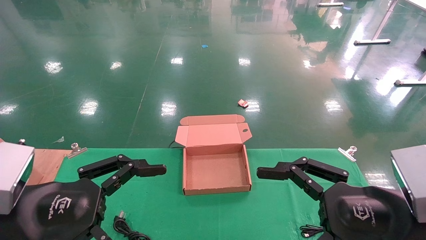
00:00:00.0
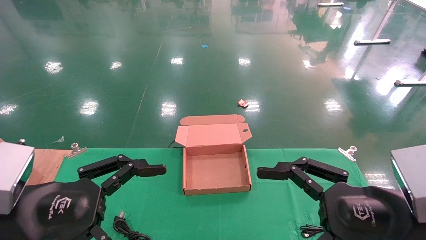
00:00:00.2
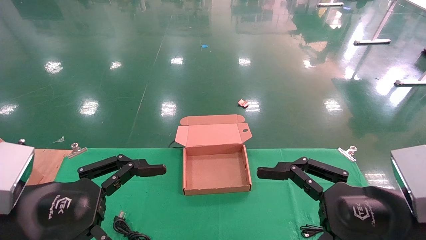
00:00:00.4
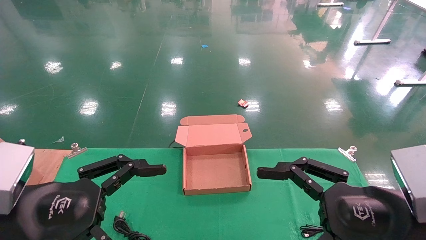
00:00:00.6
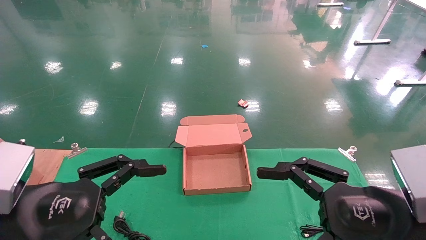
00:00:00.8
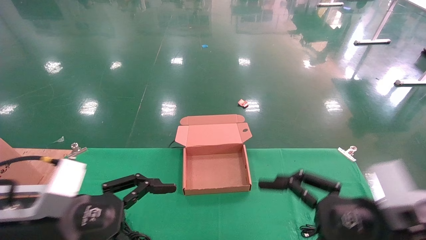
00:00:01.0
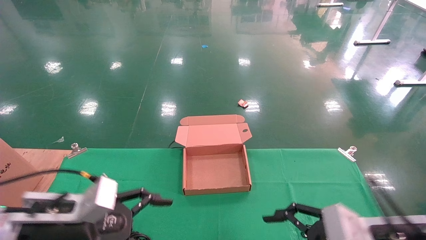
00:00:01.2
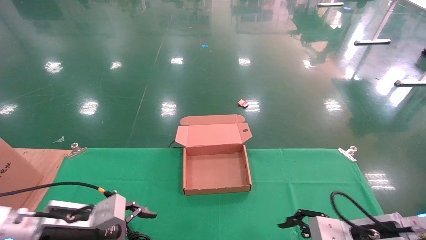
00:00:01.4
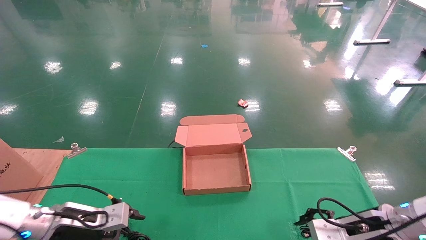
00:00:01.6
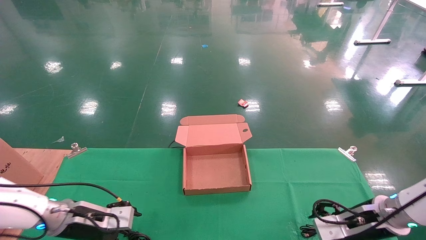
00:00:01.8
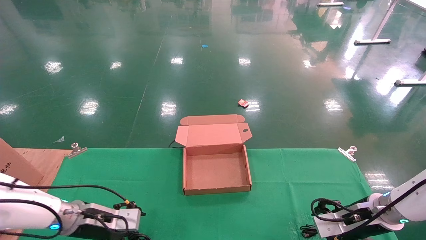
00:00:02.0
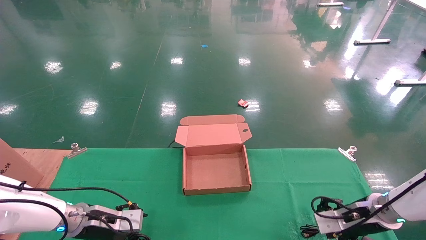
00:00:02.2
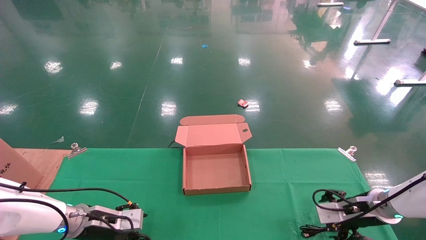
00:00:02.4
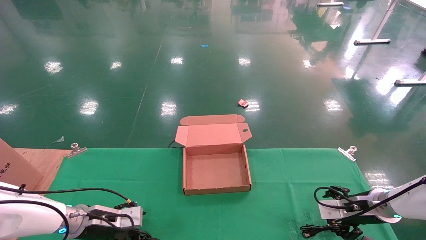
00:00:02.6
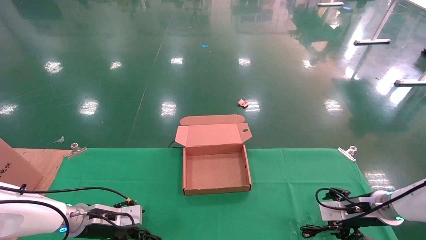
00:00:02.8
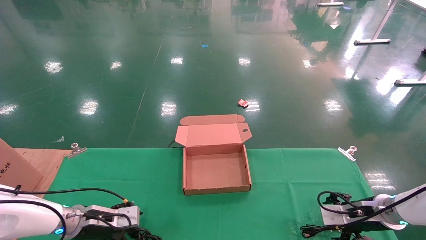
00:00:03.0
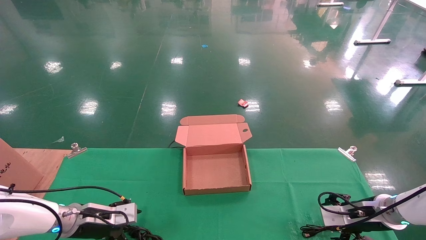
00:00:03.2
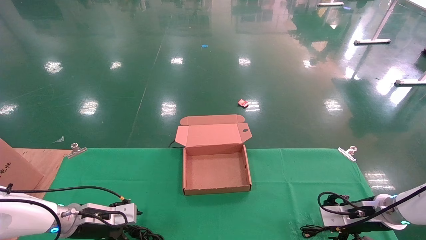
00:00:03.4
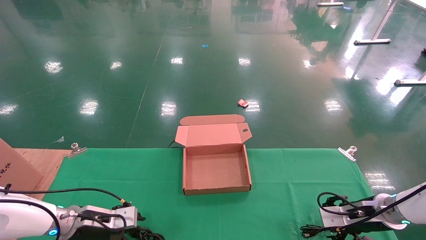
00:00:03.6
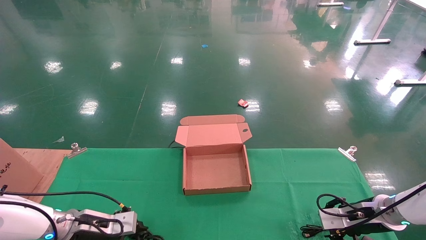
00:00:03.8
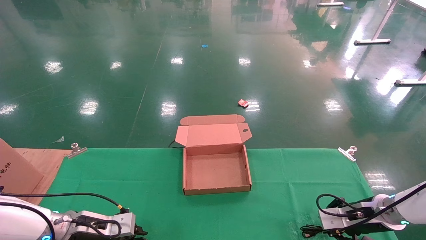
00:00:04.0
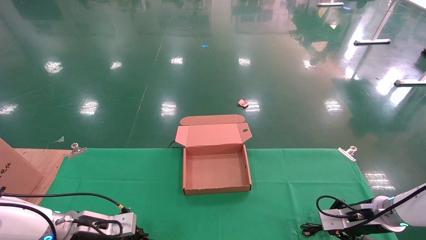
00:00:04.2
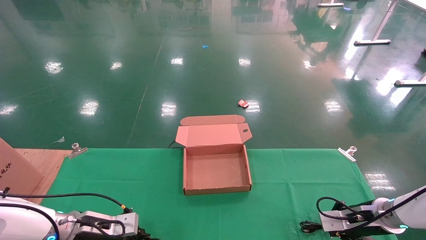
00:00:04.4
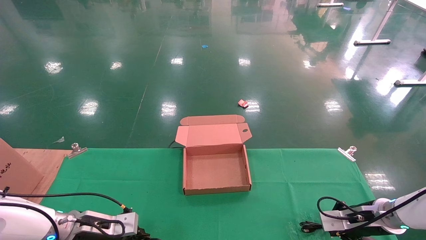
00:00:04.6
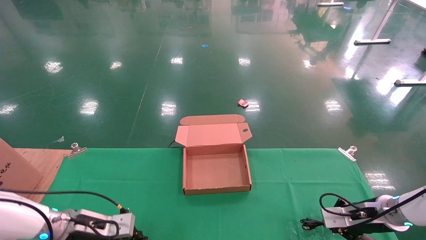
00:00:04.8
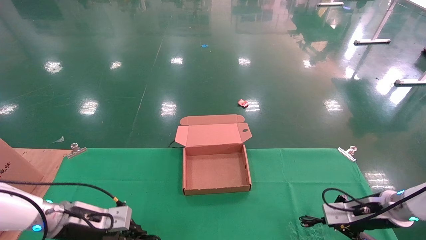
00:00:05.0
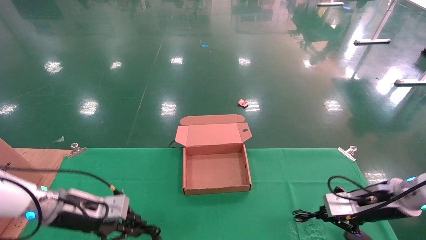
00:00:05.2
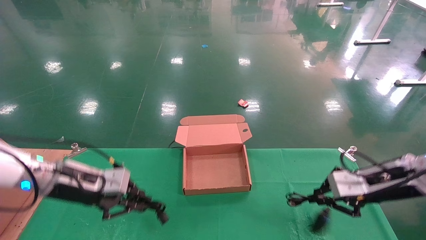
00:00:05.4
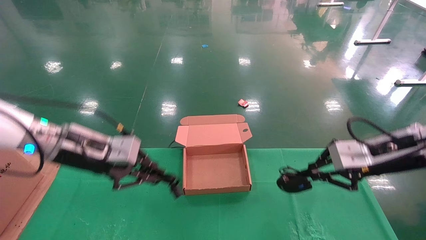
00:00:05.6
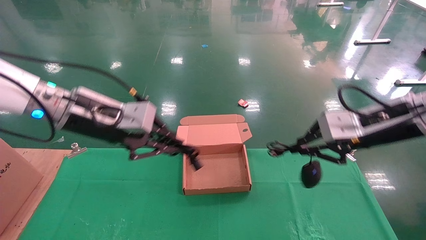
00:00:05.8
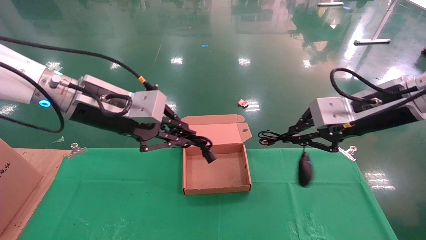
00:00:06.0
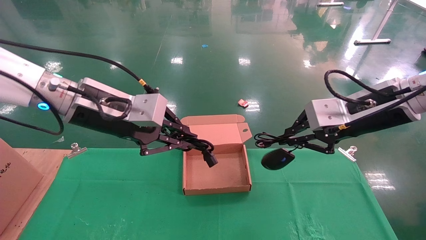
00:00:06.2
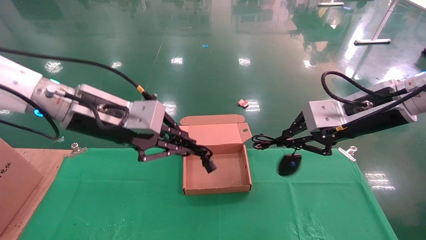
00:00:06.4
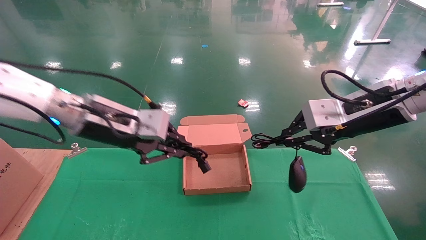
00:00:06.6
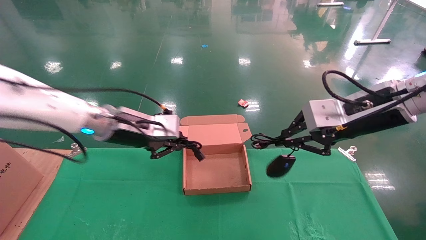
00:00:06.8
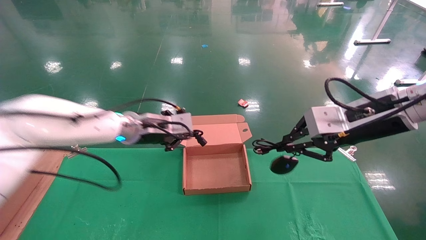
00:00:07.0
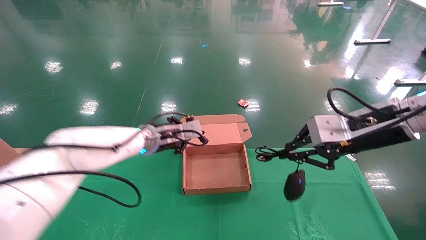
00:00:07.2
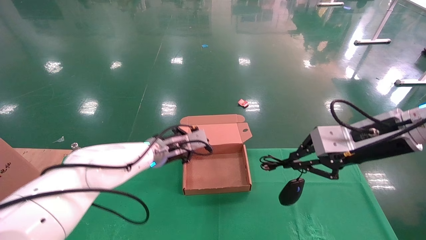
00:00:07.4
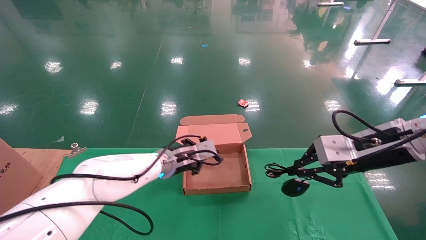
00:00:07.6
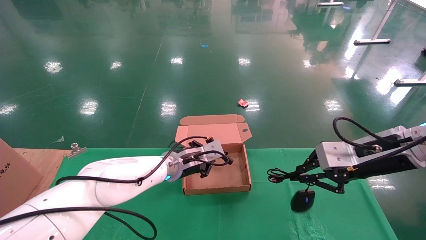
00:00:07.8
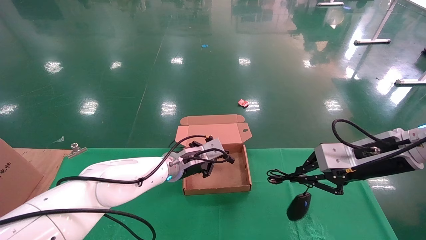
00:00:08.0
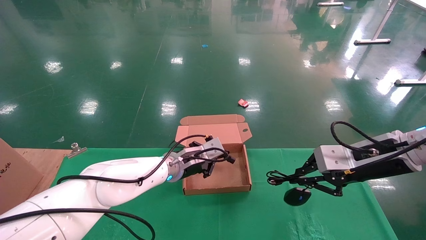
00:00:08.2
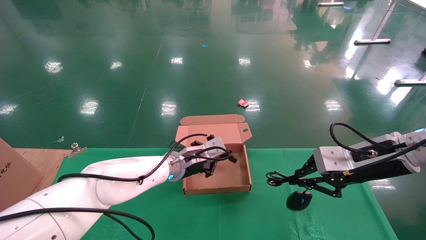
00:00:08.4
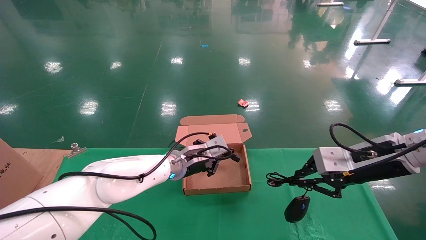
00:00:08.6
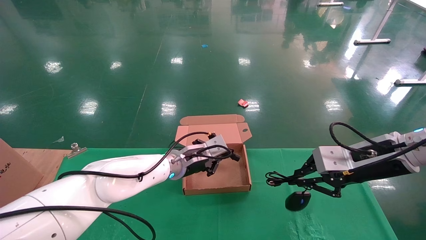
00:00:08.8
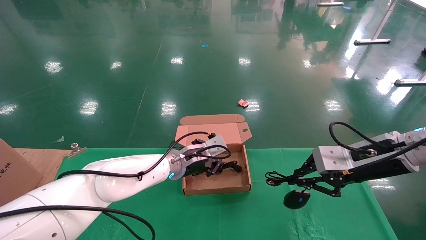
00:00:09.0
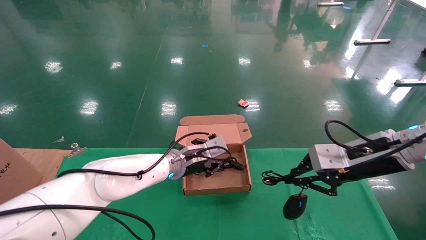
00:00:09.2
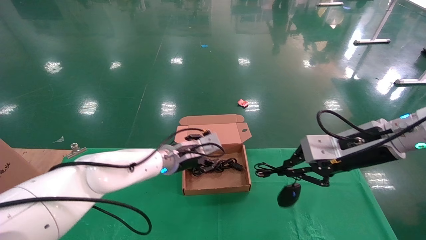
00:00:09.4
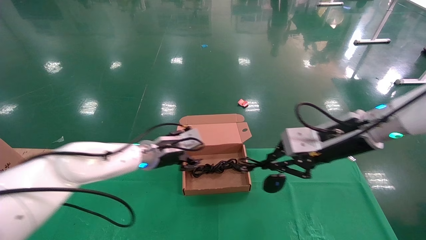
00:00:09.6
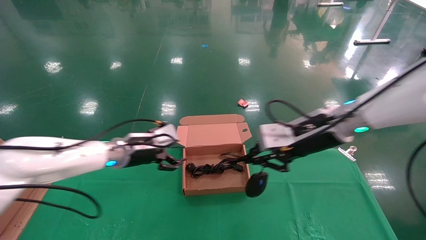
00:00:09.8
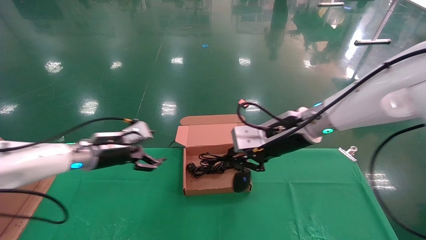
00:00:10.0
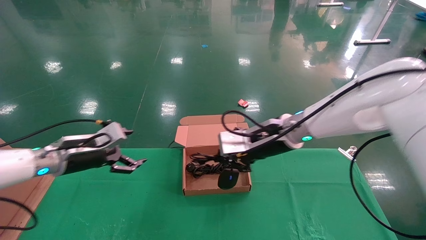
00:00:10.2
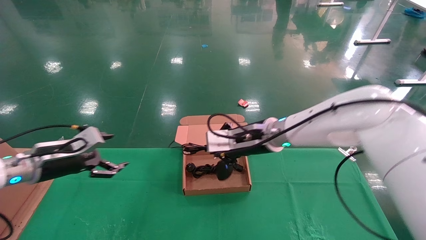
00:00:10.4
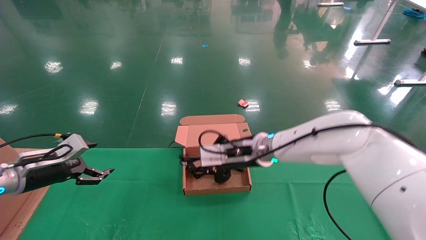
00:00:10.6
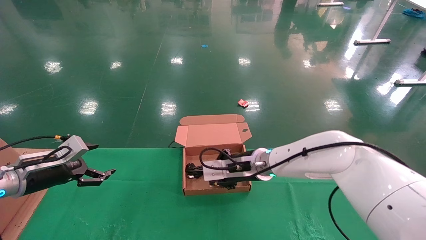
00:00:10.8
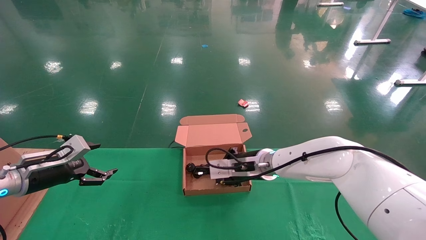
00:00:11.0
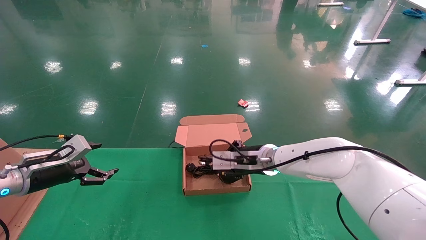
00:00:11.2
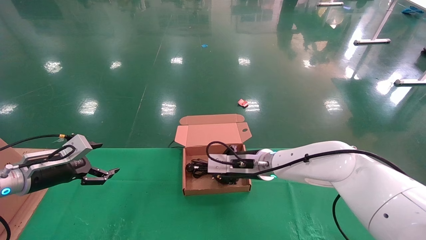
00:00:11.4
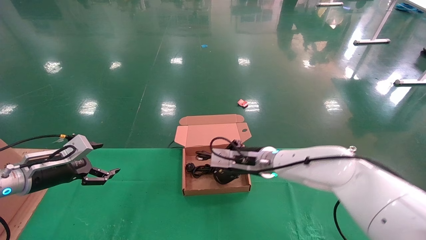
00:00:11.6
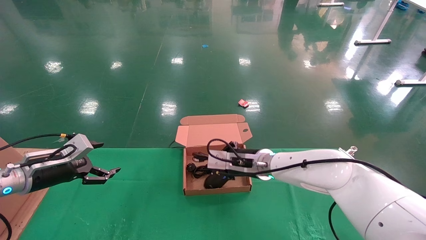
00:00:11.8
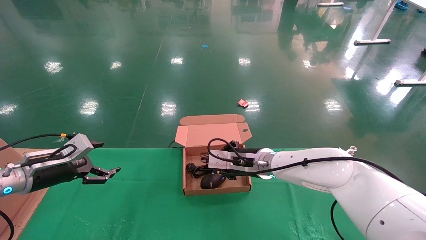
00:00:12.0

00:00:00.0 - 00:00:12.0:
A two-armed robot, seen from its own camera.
Step, 00:00:01.8 - 00:00:05.8: Grab and lift both the mouse and power cord from the accessory packaging area at the same time.
00:00:00.0 - 00:00:01.6: Both grippers travel together forward and downward, approximately 20 cm.
00:00:01.6 - 00:00:03.0: The left gripper heads forward and downward, covering about 10 cm; the right gripper shifts some 10 cm forward and to the right.
00:00:03.0 - 00:00:04.4: The right gripper closes; the left gripper closes.
00:00:04.4 - 00:00:06.0: The two grippers go roughly 30 cm upward.
00:00:06.0 - 00:00:07.6: The right gripper goes roughly 5 cm downward; the left gripper moves downward, forward and to the right, some 25 cm.
00:00:07.6 - 00:00:09.0: The grippers stay close to where they were, moving slightly.
00:00:09.0 - 00:00:10.4: The right gripper shifts some 20 cm to the left and forward; the left gripper shifts roughly 30 cm to the left, and opens up.
00:00:10.4 - 00:00:12.0: The right gripper shifts roughly 10 cm downward.

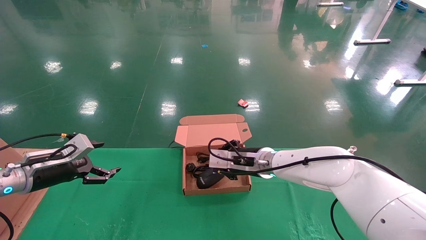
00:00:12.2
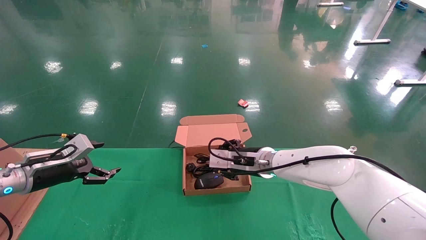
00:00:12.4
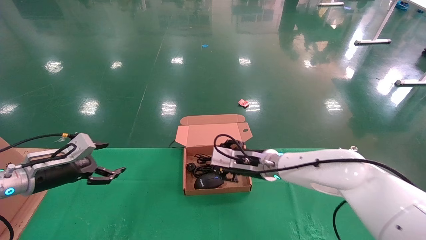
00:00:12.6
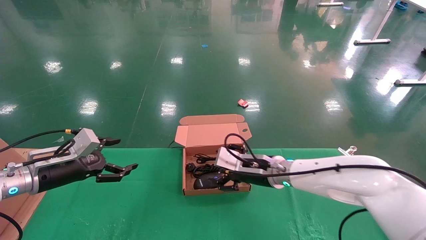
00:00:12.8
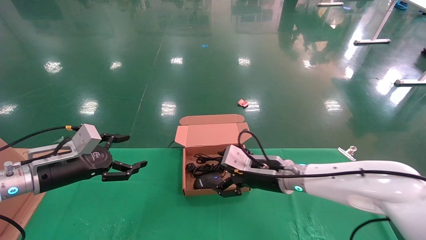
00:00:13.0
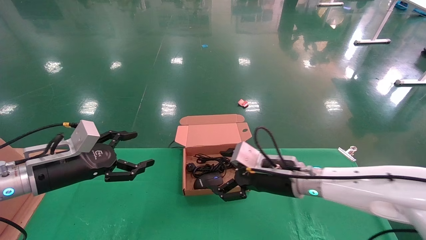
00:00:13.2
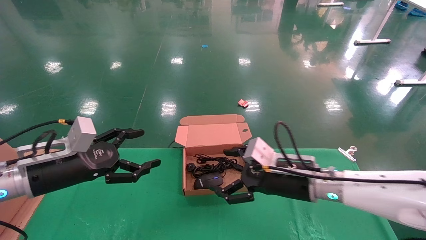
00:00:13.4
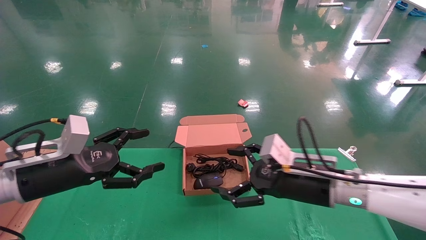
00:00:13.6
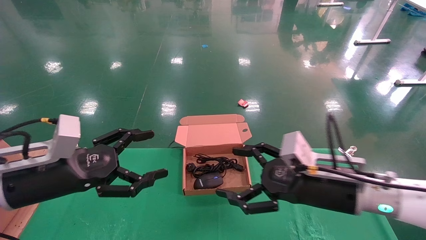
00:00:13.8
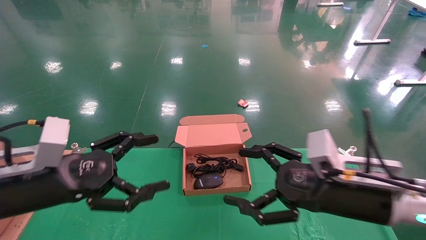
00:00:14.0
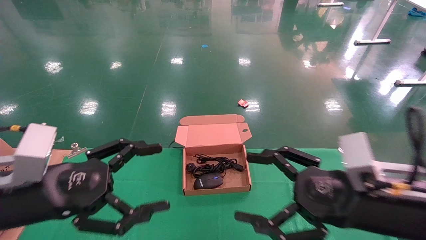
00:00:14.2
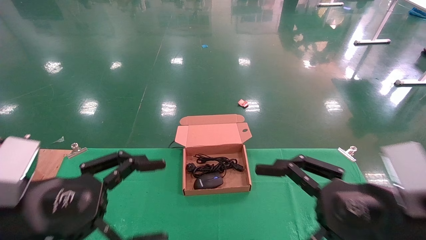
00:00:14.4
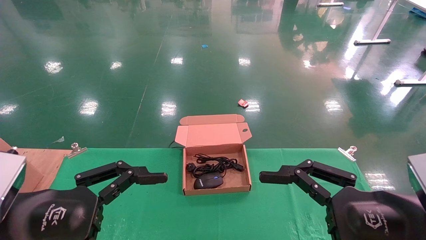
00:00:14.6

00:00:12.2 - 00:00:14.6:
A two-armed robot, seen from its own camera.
00:00:12.2 - 00:00:13.4: The left gripper moves to the right and backward, approximately 10 cm. The right gripper shifts approximately 15 cm backward and to the right, and opens.
00:00:13.4 - 00:00:14.6: The left gripper moves backward, about 15 cm; the right gripper heads backward and to the right, covering approximately 20 cm.

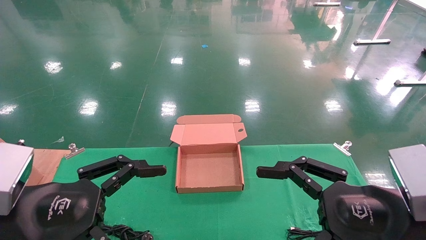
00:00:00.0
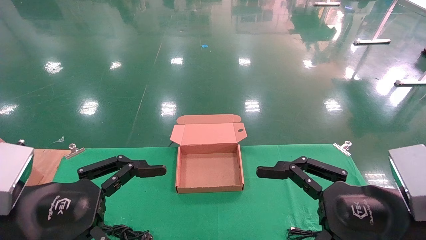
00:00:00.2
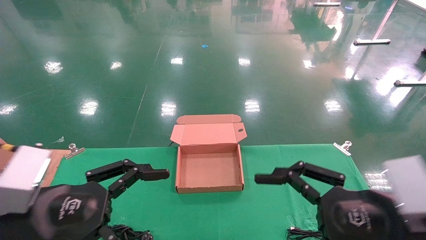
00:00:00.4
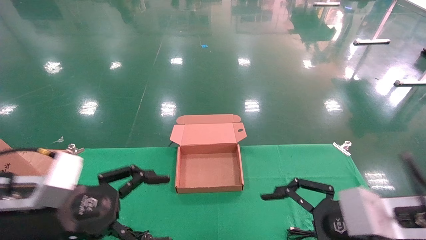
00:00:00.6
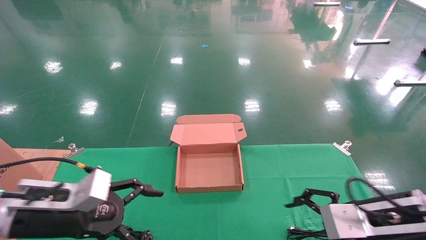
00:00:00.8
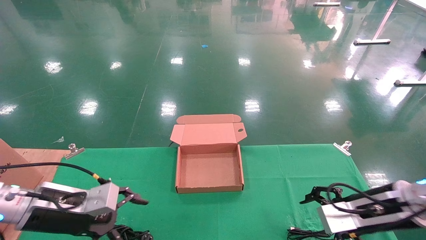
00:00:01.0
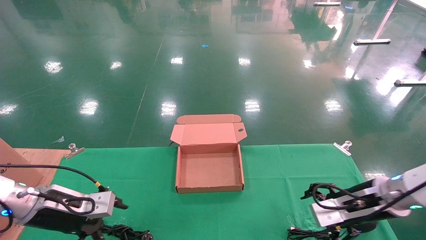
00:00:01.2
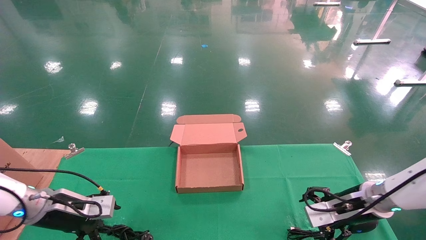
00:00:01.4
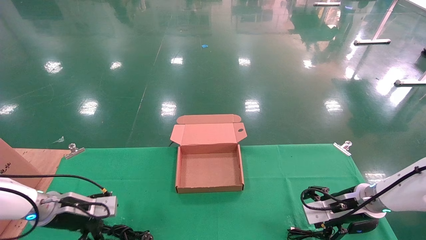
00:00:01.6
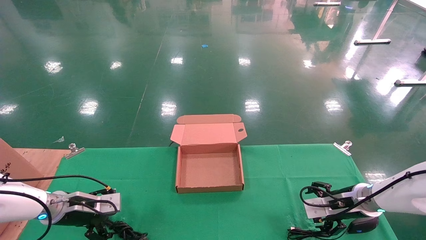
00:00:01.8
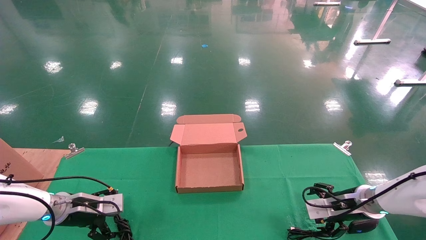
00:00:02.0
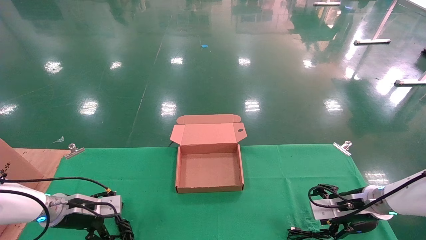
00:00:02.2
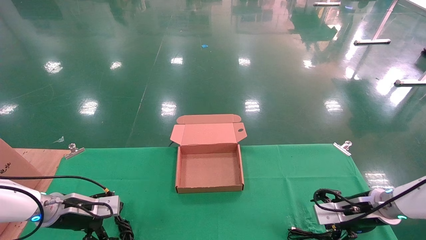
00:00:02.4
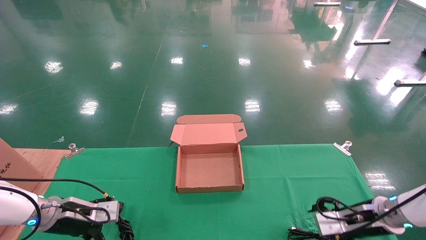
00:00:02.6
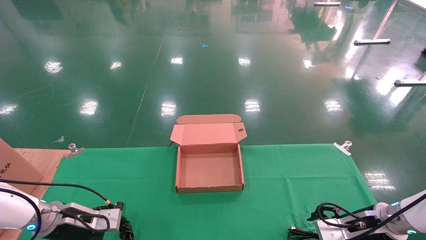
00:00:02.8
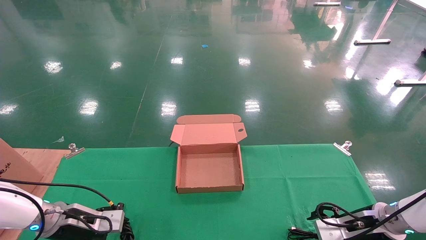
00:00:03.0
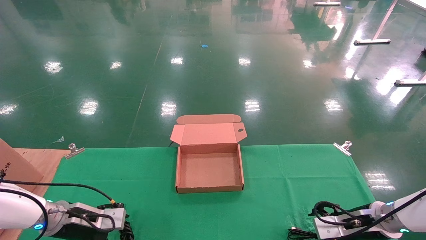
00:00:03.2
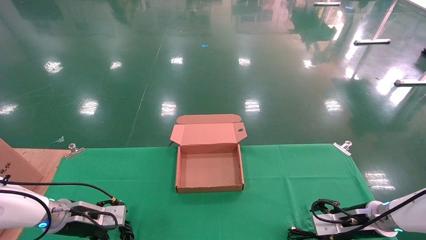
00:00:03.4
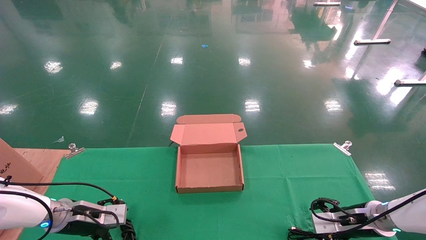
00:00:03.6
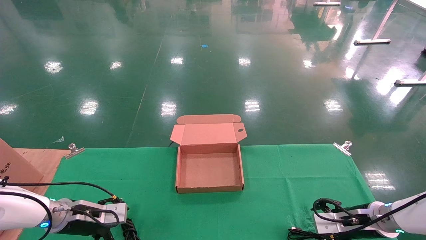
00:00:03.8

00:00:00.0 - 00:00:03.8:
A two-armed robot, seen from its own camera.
00:00:00.0 - 00:00:01.2: Both grippers travel together forward and downward, roughly 20 cm.
00:00:01.2 - 00:00:02.6: The grippers both shift downward by some 5 cm.
00:00:02.6 - 00:00:03.8: The grippers move only a little.
